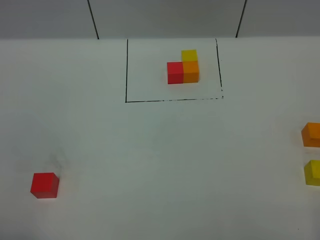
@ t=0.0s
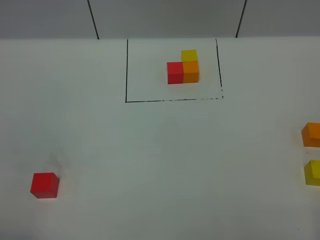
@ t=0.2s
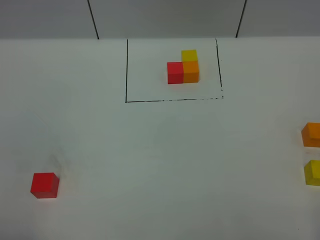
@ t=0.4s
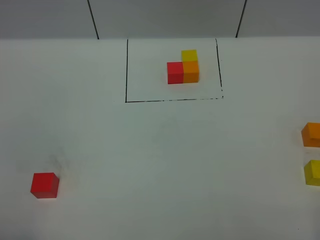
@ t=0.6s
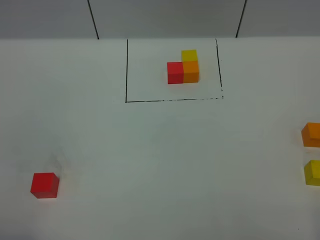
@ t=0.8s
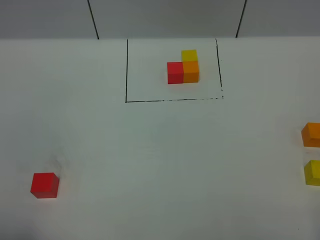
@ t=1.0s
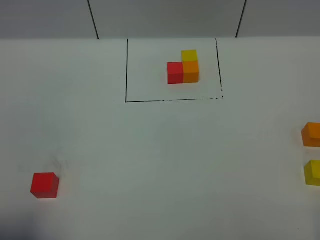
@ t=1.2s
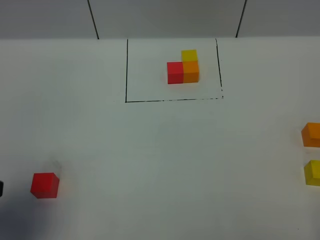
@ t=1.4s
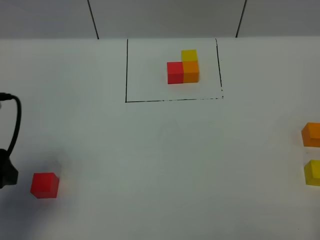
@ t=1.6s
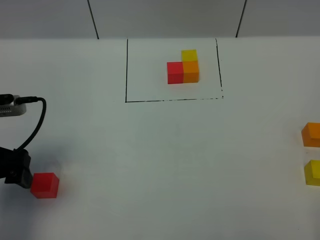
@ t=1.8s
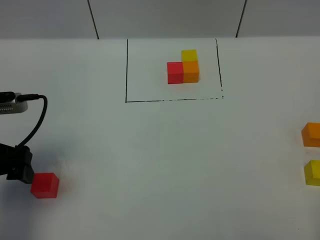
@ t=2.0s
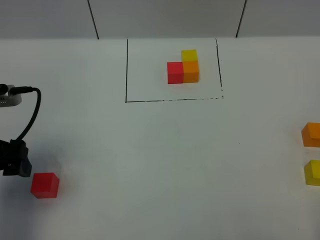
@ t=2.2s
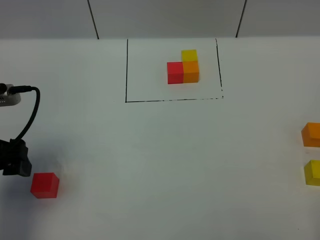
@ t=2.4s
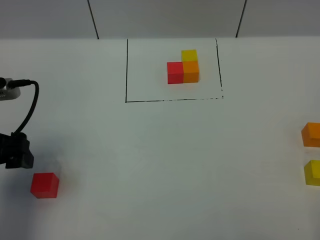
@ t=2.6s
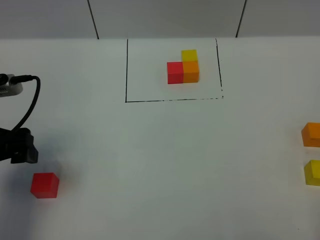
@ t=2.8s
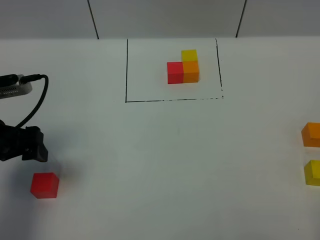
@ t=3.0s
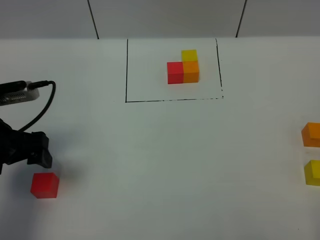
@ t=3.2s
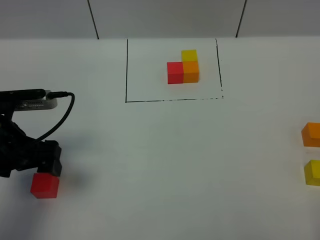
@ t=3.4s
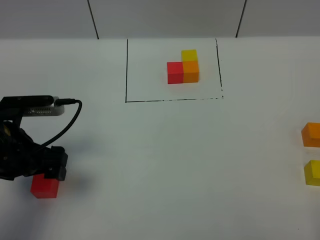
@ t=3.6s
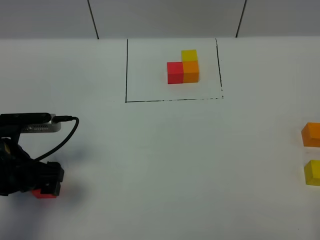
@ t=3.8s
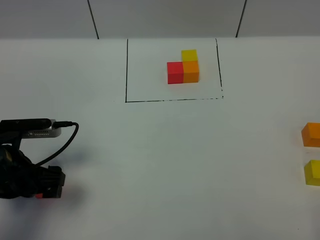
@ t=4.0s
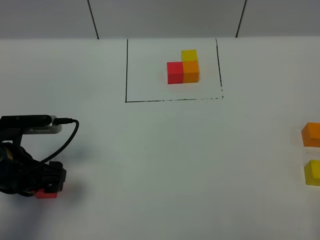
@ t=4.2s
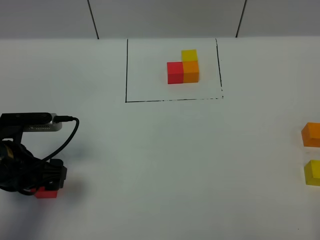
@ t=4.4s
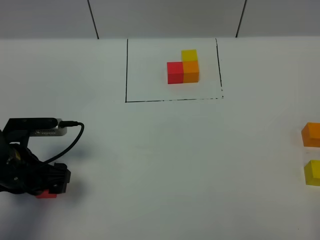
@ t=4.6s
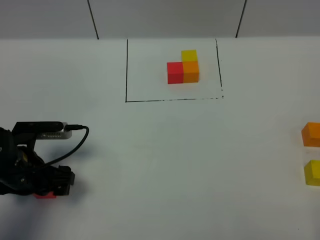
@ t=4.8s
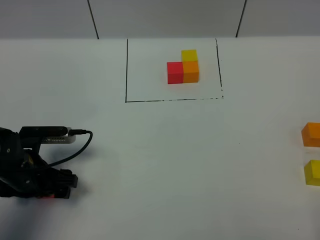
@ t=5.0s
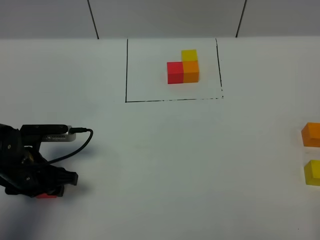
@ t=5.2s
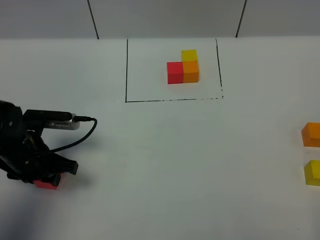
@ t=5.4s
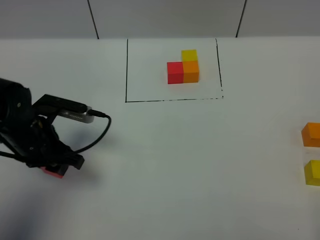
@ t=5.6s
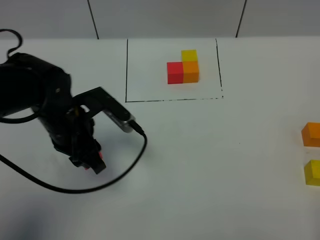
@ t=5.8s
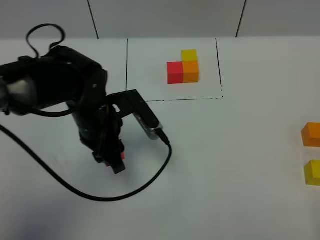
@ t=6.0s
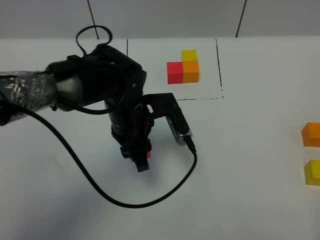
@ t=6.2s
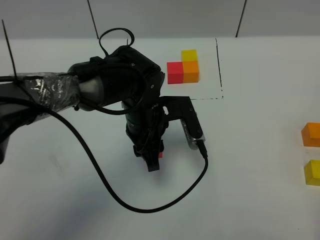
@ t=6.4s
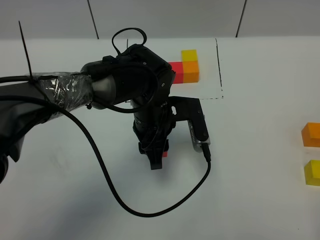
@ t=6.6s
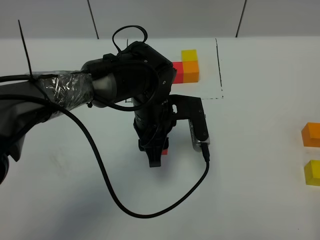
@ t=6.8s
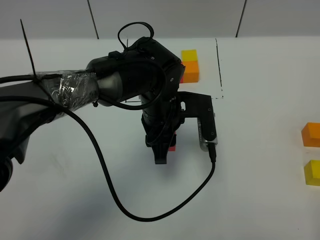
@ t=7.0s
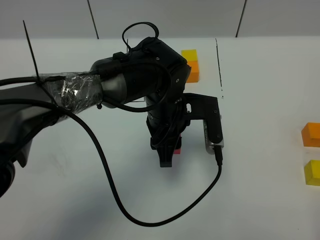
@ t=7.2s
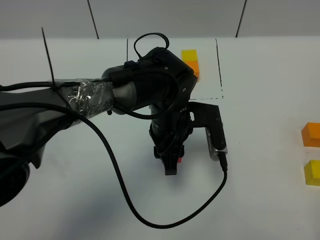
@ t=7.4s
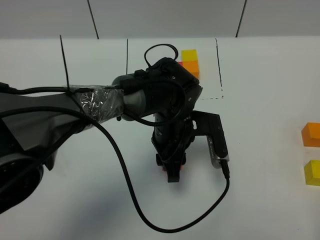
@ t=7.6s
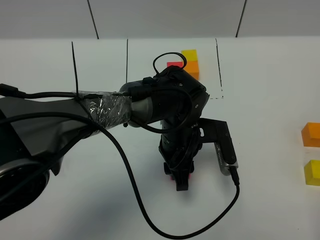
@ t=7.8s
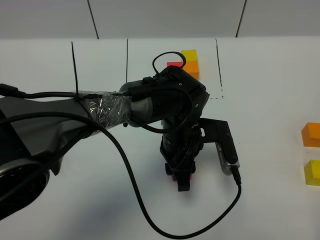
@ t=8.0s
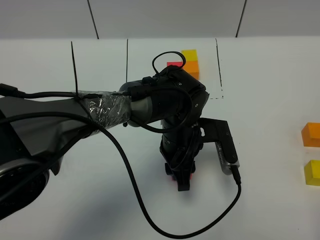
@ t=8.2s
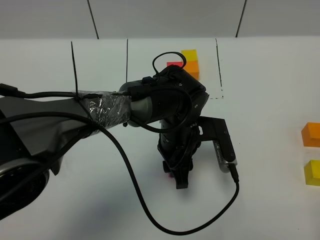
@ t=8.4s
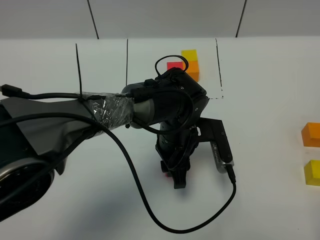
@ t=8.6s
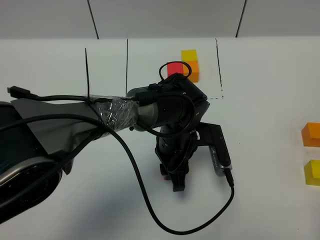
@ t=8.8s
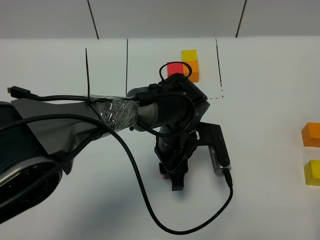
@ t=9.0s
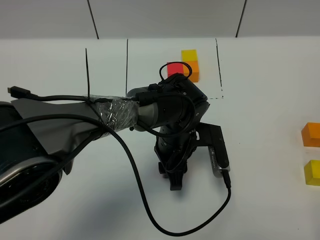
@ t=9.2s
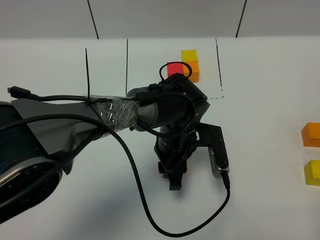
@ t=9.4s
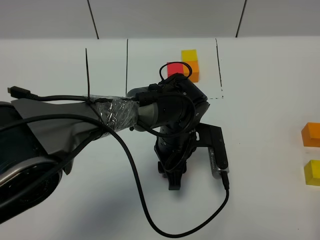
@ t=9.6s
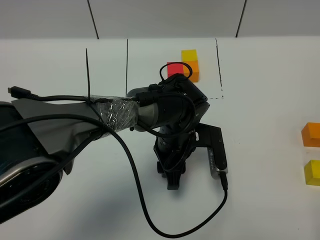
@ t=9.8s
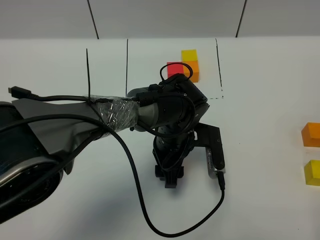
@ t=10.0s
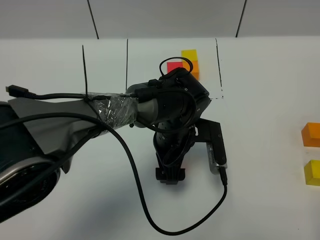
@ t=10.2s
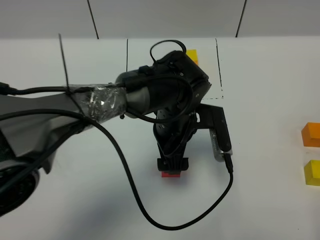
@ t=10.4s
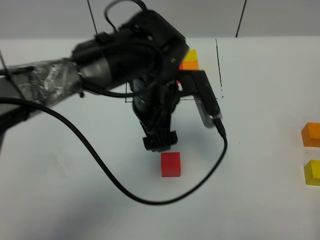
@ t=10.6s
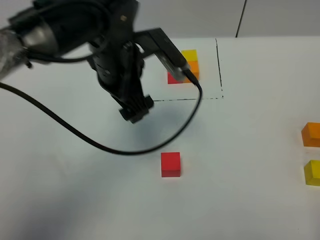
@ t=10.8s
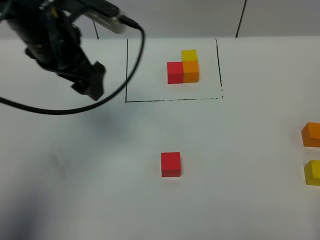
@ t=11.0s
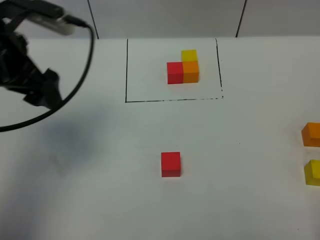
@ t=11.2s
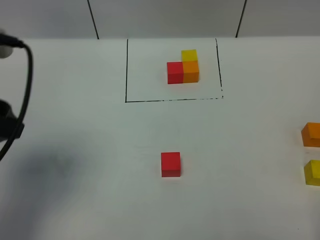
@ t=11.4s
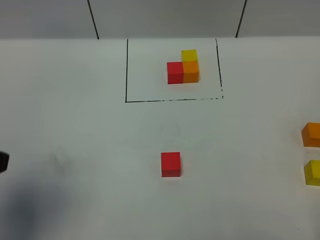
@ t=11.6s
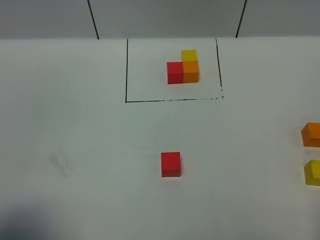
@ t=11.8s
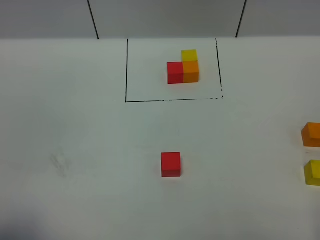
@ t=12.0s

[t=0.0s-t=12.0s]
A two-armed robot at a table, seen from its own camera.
Task of the whole recording: According to the building block template in front, assemble the scattered blocks together.
Step, t=0.0s to t=9.8s: Put the red build block in the center of the table.
t=0.0s to t=1.6s: The left gripper shifts roughly 15 cm forward.
t=1.6s to t=3.0s: The left gripper is displaced forward by approximately 5 cm.
t=3.0s to t=4.4s: The left gripper goes roughly 5 cm downward.
t=4.4s to t=6.0s: The left gripper travels to the right and forward by approximately 15 cm, and closes.
t=6.0s to t=7.6s: The left gripper heads to the right, covering roughly 10 cm.
t=7.6s to t=9.0s: The grippers stay close to where they were, moving slightly.
t=9.0s to t=10.4s: The left gripper moves upward, about 5 cm, and opens its fingers.
t=10.4s to t=12.0s: The left gripper moves to the left, backward and upward, some 40 cm.

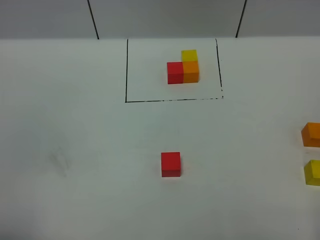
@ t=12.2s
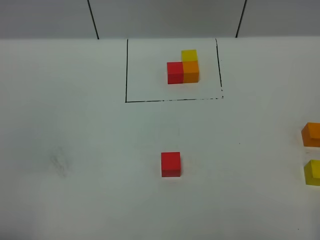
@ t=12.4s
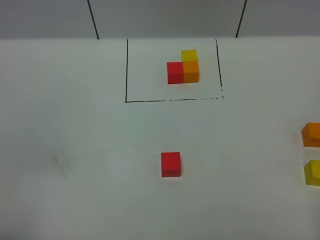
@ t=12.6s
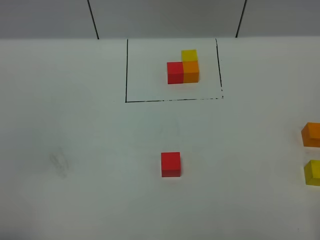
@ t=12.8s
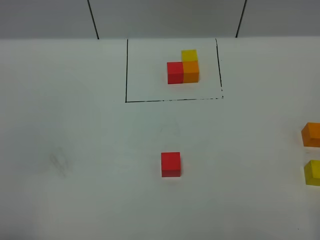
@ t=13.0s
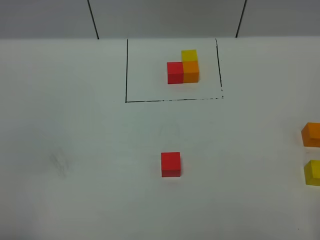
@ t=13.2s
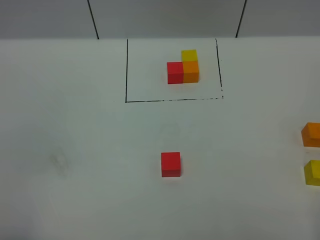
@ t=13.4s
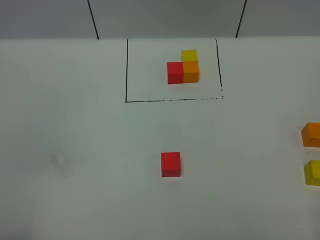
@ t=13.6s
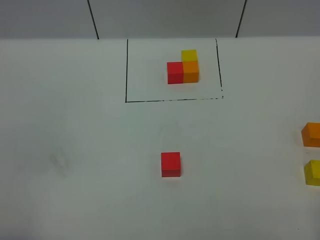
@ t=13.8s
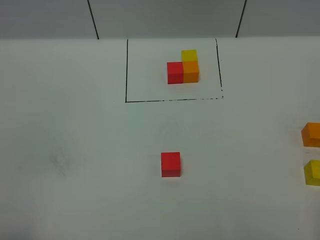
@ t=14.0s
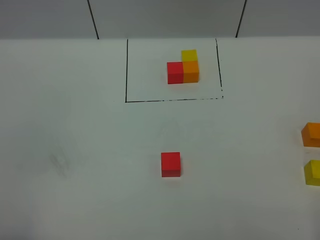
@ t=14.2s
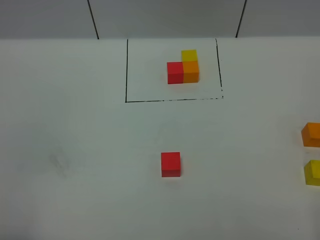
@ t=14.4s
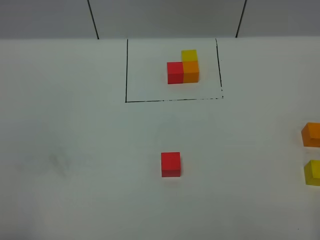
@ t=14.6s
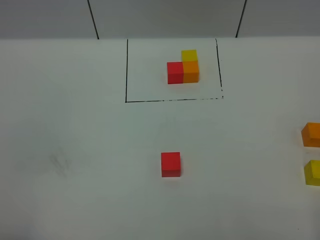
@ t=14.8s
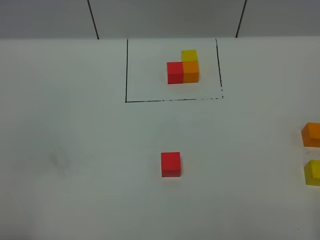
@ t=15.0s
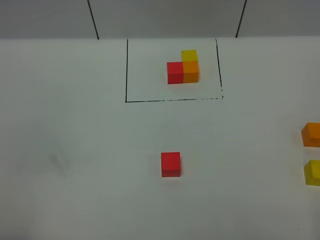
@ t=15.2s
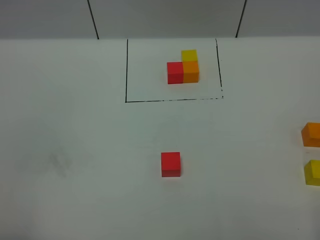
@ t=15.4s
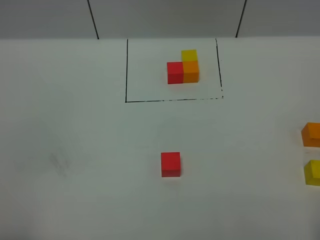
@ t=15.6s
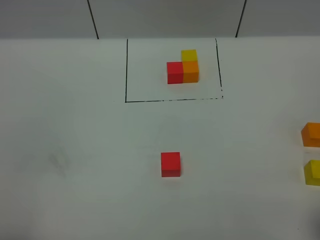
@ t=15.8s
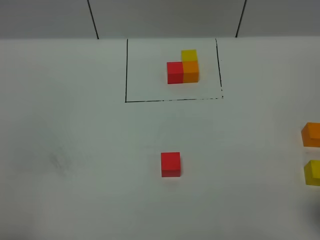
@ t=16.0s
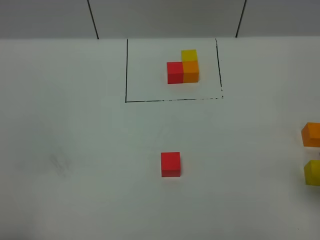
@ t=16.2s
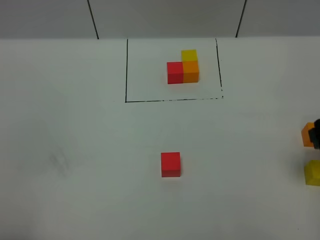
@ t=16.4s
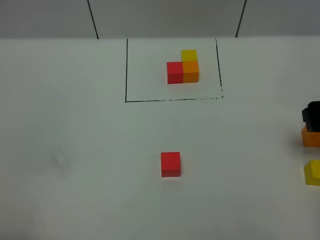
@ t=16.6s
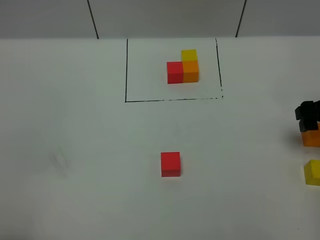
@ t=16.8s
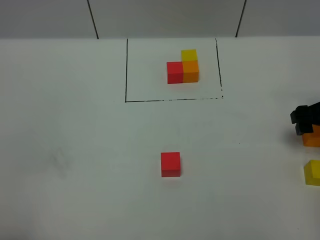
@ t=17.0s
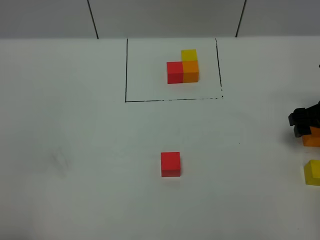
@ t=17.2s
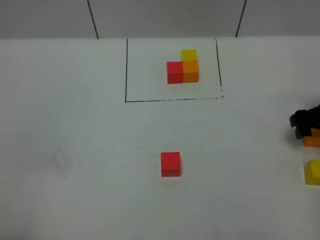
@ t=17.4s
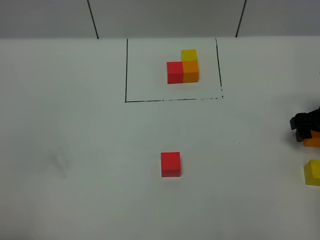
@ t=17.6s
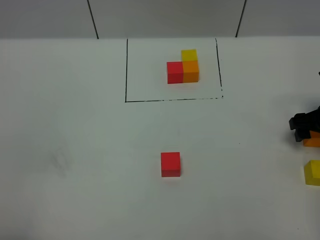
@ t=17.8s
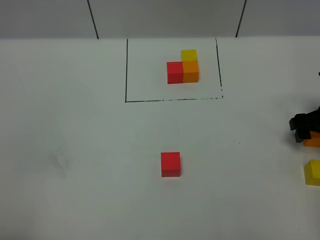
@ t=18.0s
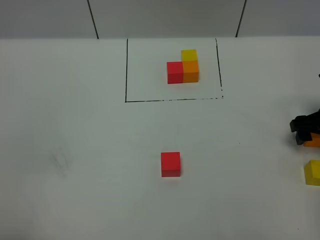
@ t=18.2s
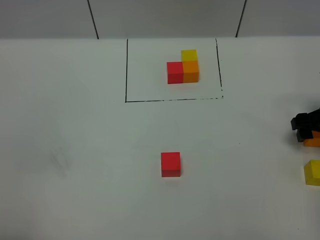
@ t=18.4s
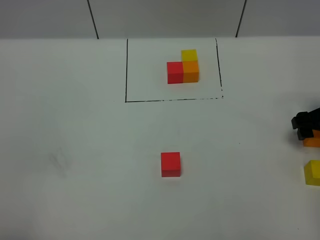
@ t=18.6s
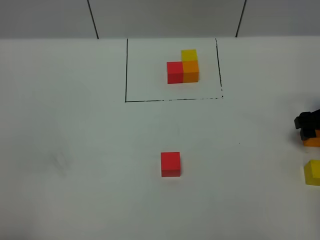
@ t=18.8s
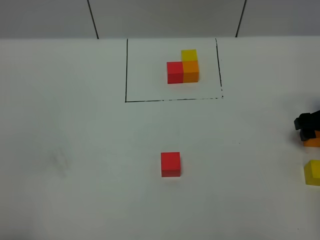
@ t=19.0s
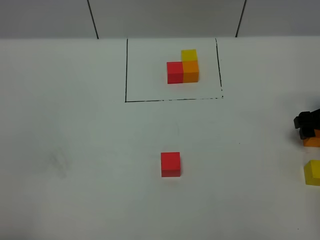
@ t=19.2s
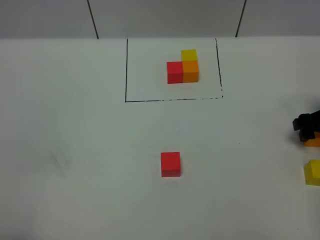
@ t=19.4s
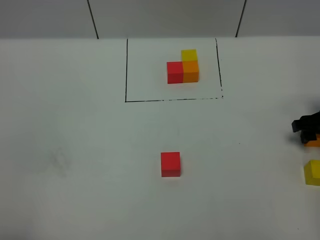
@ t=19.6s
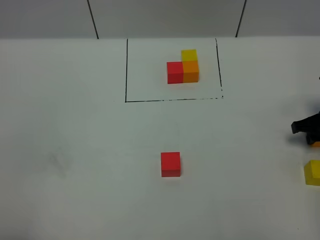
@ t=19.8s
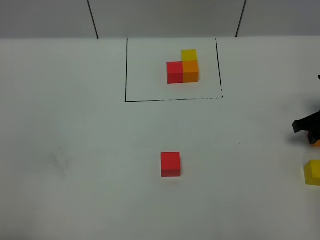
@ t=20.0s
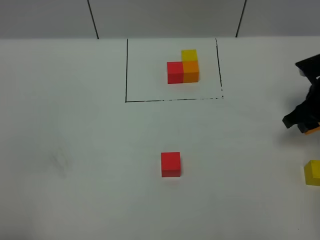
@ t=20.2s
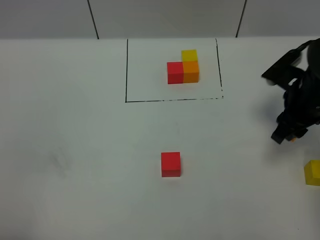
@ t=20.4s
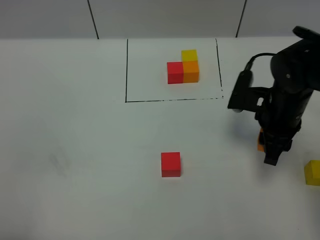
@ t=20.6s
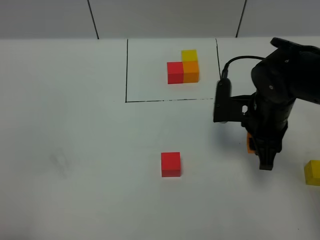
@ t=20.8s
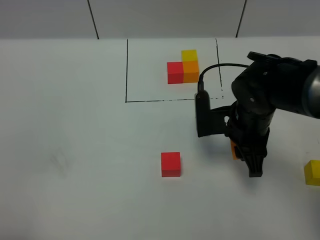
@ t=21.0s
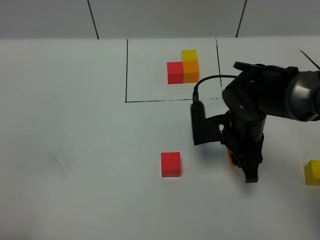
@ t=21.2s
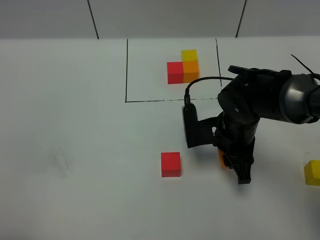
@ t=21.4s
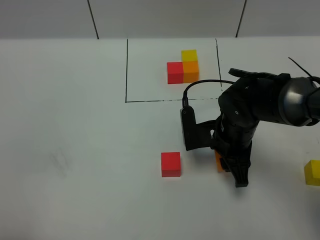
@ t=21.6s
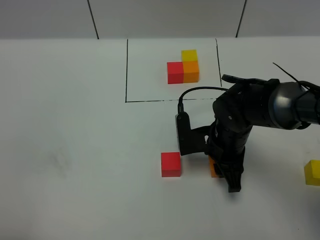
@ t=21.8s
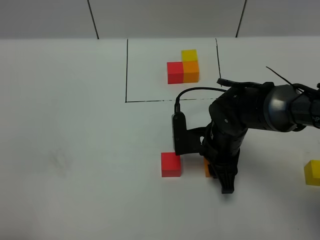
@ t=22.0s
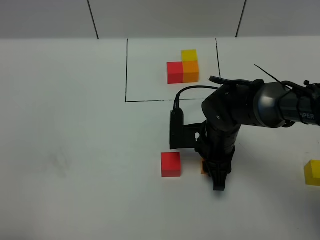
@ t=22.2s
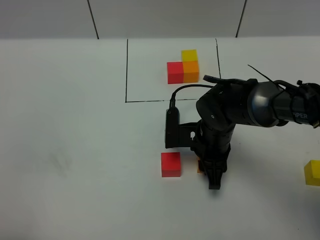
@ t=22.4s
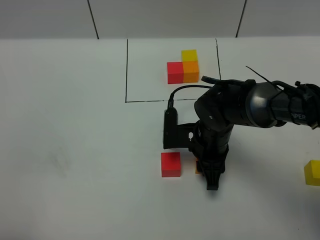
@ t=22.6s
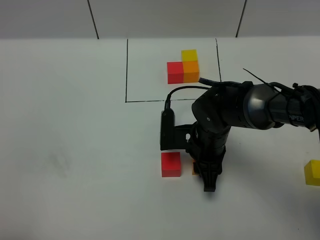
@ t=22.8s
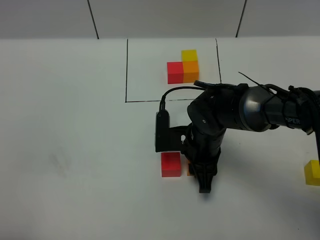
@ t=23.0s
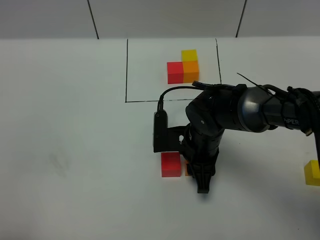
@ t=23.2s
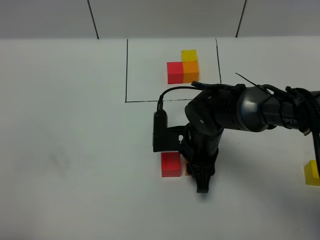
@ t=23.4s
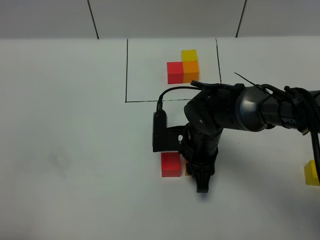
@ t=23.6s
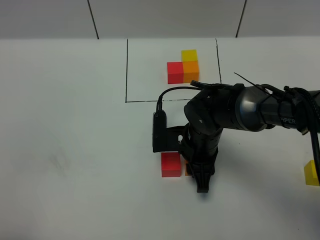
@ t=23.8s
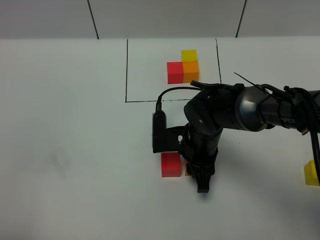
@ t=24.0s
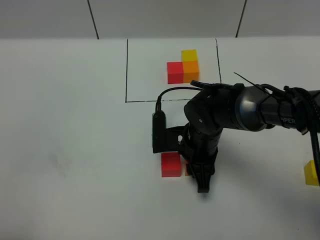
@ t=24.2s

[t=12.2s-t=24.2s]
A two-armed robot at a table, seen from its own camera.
Task of the whole recording: According to the building block template in front, assemble the scattered blocks together.
t=13.8s to t=15.2s: Neither gripper changes place.
t=15.2s to t=16.6s: The right gripper heads forward, covering some 30 cm.
t=16.6s to t=18.2s: The right gripper moves downward, about 10 cm.
t=19.8s to t=21.2s: The right gripper travels to the left by some 20 cm.
t=21.2s to t=22.6s: The right gripper ends up roughly 5 cm from where it was.
t=22.6s to t=24.2s: The grippers move only a little.
